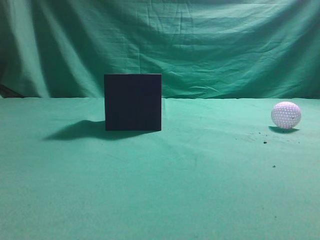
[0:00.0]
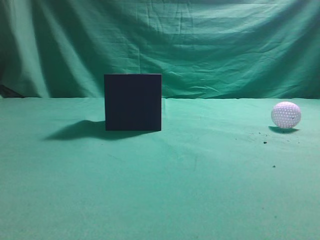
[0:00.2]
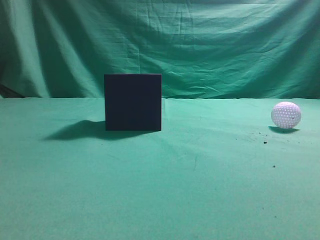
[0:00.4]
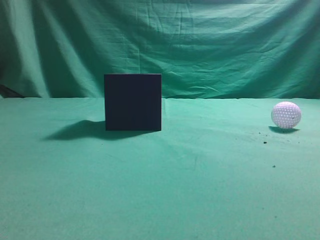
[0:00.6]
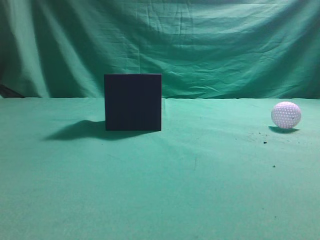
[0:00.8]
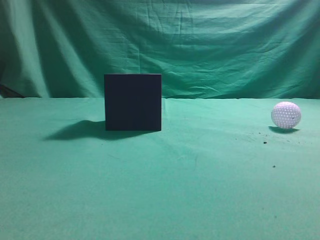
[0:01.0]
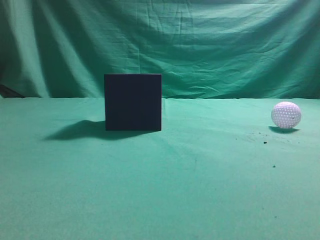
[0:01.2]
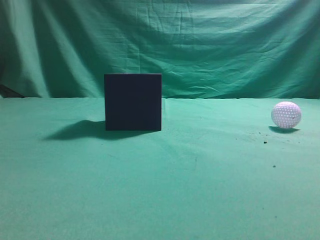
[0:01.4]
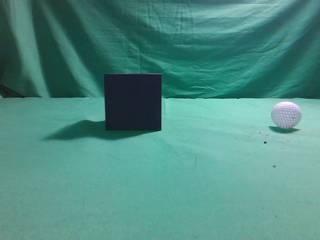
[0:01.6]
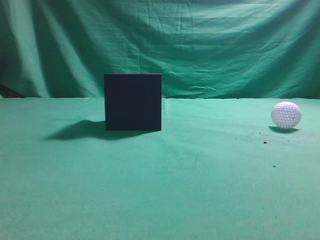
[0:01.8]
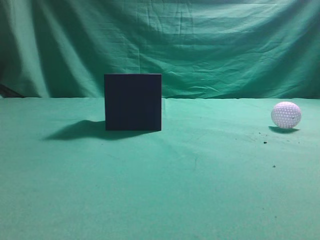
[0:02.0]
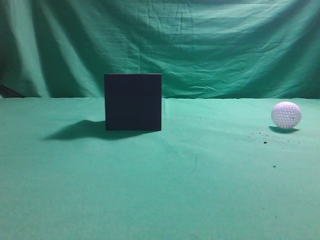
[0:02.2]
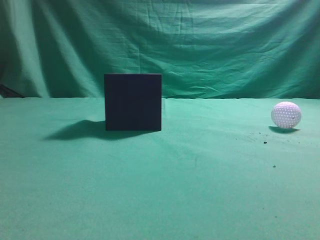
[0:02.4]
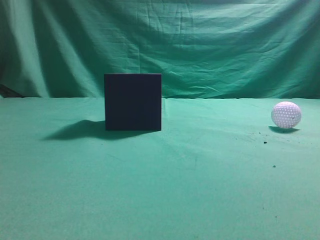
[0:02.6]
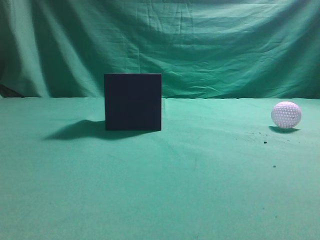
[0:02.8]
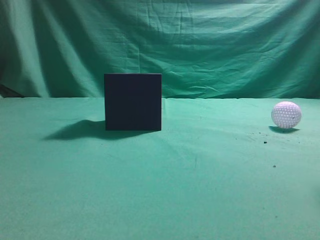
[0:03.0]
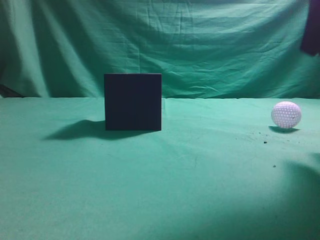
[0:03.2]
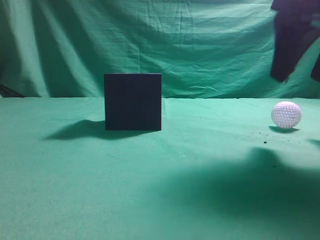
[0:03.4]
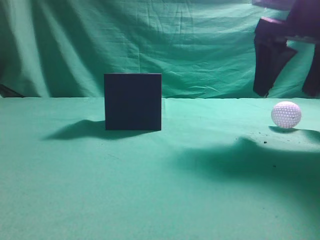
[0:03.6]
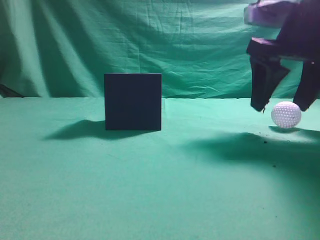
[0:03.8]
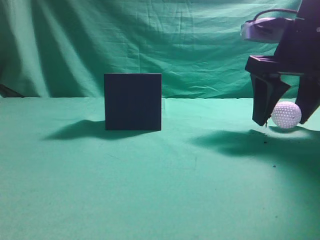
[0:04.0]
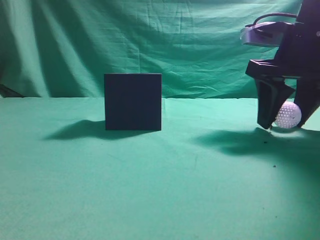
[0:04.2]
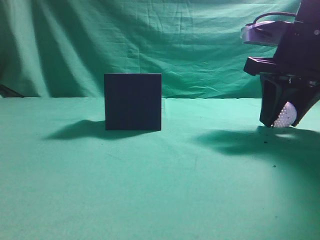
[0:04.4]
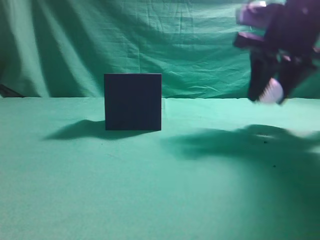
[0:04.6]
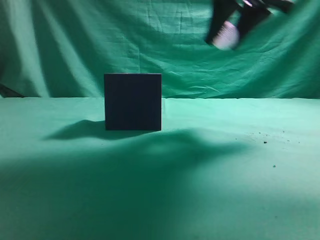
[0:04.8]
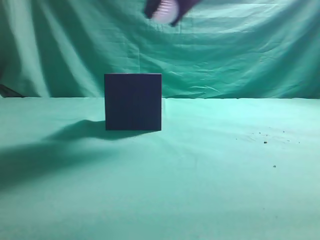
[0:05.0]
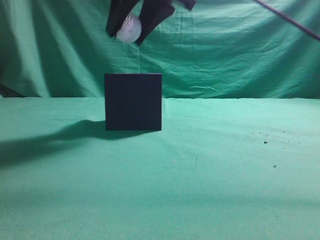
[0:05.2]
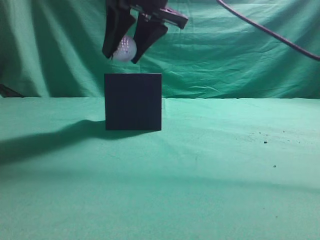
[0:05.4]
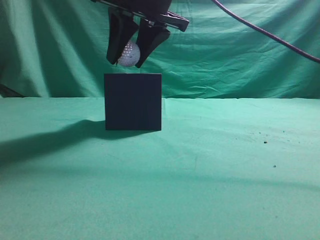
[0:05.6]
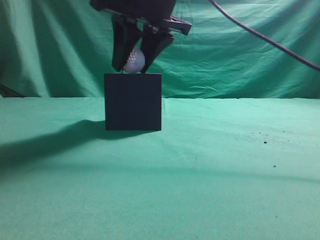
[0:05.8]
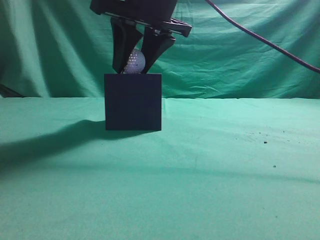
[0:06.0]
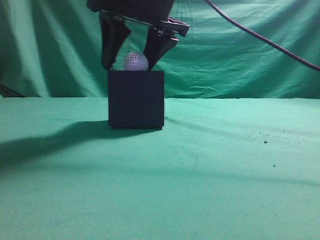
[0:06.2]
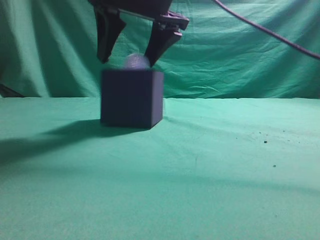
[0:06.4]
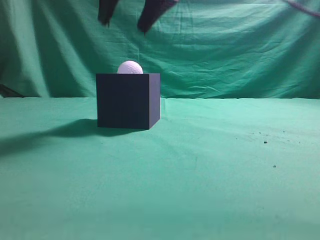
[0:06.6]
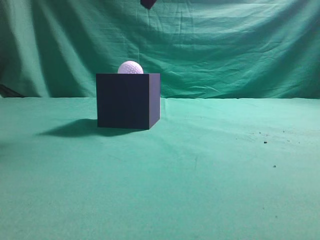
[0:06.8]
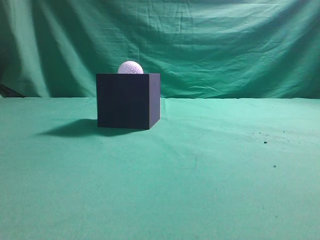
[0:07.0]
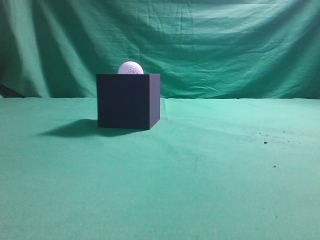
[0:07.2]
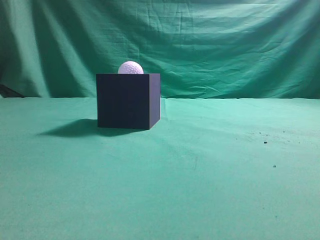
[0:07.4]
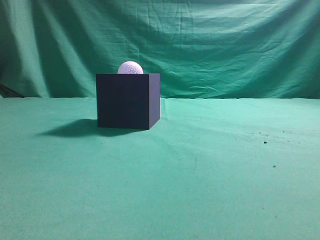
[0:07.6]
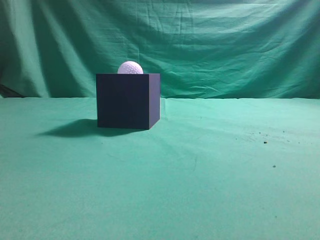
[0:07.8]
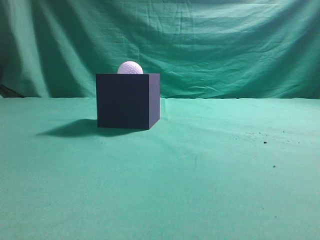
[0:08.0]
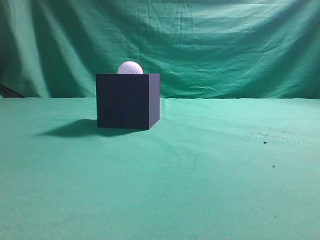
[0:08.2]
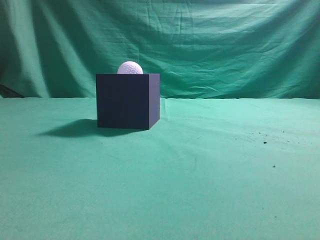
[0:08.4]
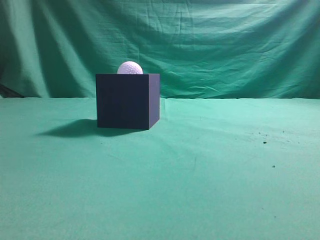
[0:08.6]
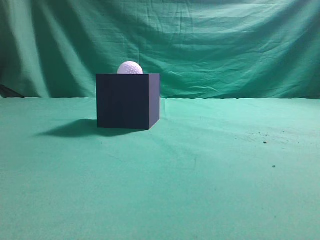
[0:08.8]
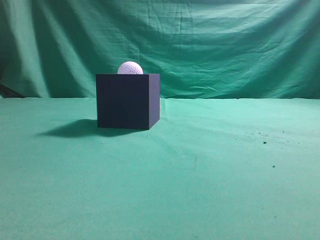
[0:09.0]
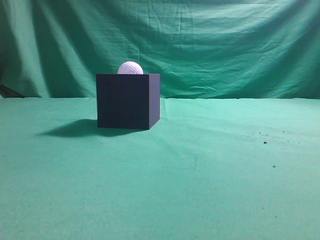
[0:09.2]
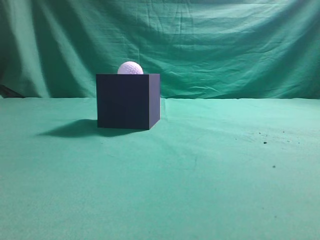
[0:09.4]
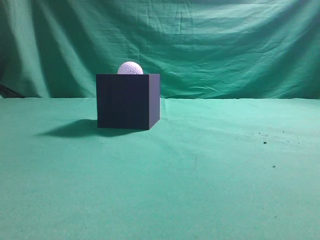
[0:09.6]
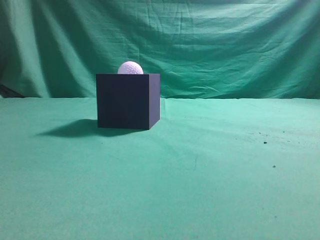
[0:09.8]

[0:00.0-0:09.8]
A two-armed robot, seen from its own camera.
Task of the whole recording: Pick up the ball and place it in the circular groove above the cube.
Step, 0:00.0 to 0:03.8: Grasp the sphere on the table.
Step, 0:04.0 to 0:05.4: Place the sphere into the sphere-shaped recess.
0:02.8 to 0:04.2: The right gripper goes about 20 cm forward and downward, and opens its fingers.
0:04.2 to 0:05.6: The right gripper moves to the left and upward, some 20 cm.
0:05.6 to 0:07.0: The right gripper travels upward by about 10 cm, and opens, then closes once more.
